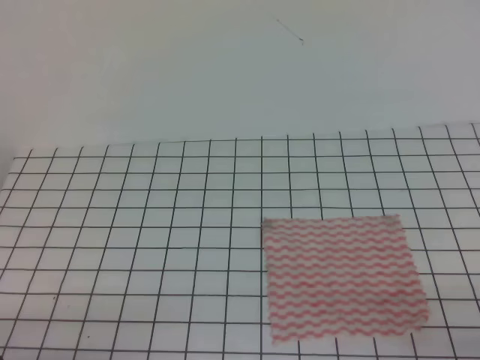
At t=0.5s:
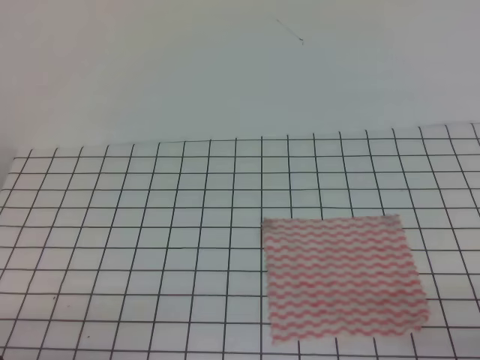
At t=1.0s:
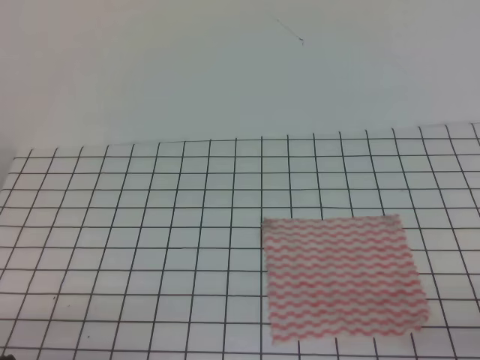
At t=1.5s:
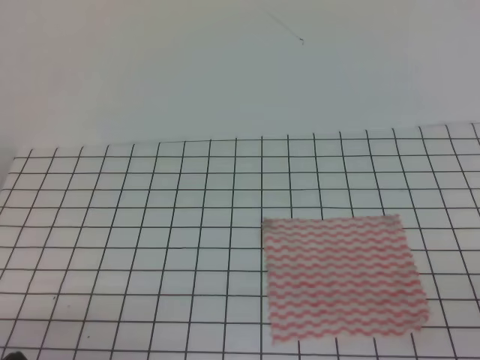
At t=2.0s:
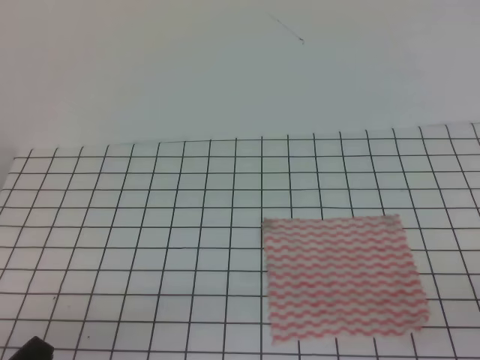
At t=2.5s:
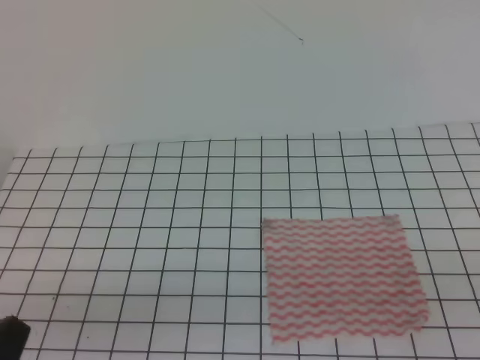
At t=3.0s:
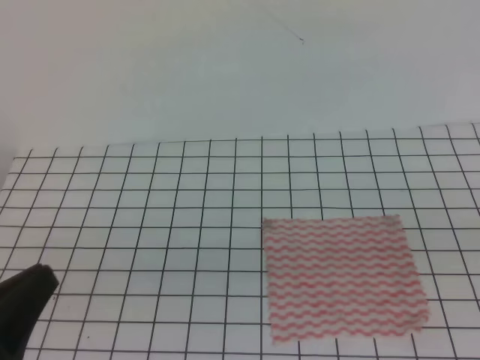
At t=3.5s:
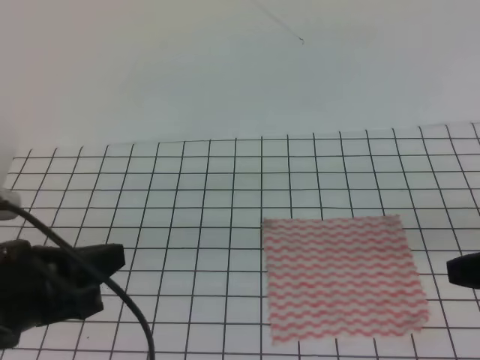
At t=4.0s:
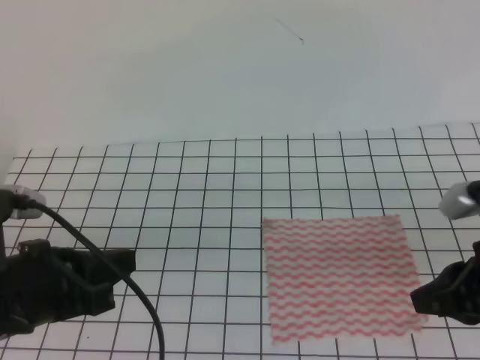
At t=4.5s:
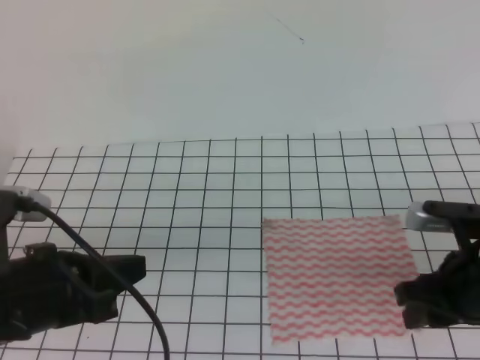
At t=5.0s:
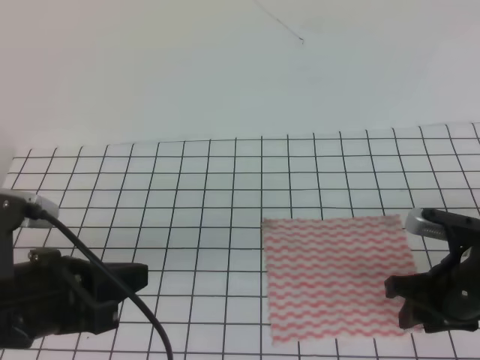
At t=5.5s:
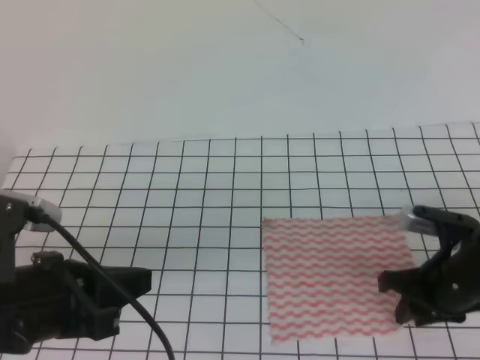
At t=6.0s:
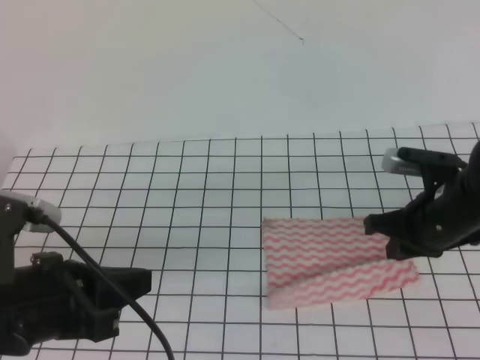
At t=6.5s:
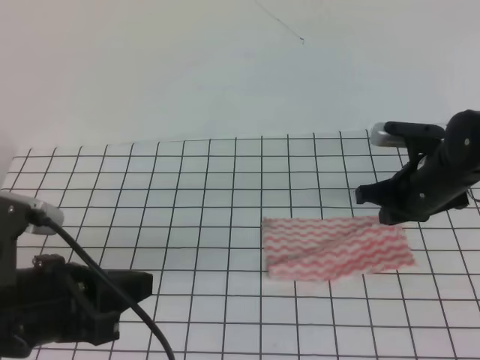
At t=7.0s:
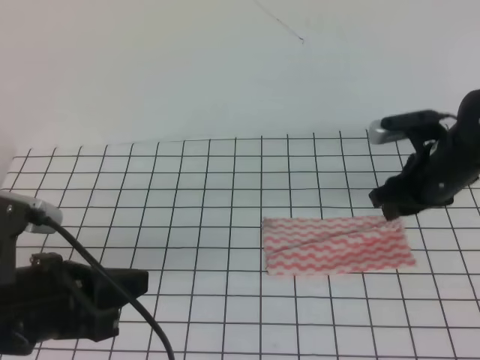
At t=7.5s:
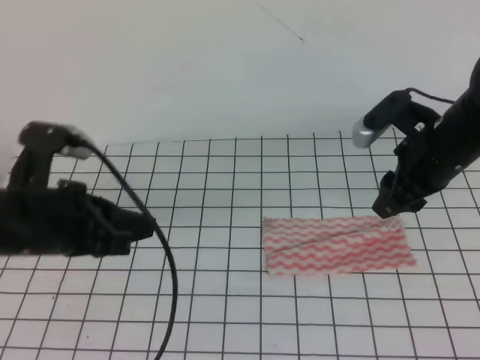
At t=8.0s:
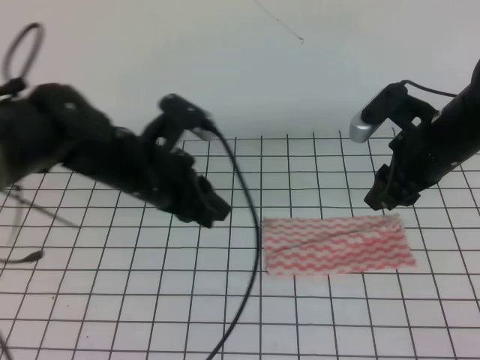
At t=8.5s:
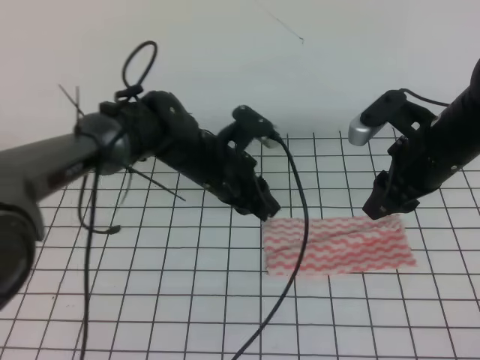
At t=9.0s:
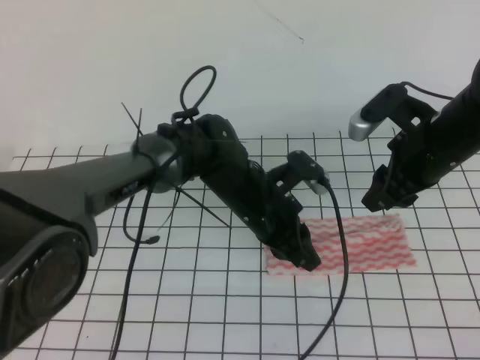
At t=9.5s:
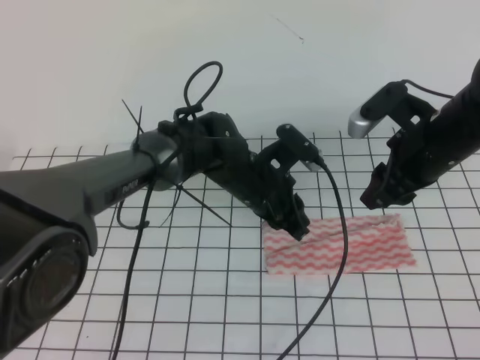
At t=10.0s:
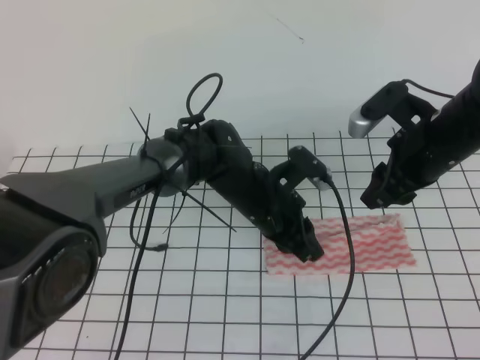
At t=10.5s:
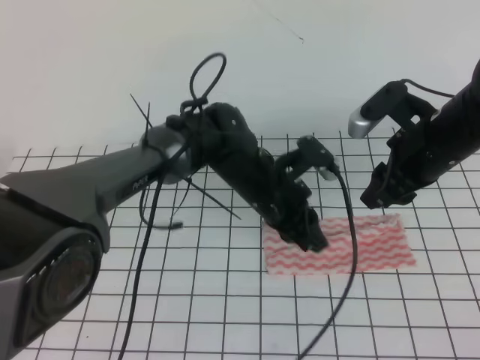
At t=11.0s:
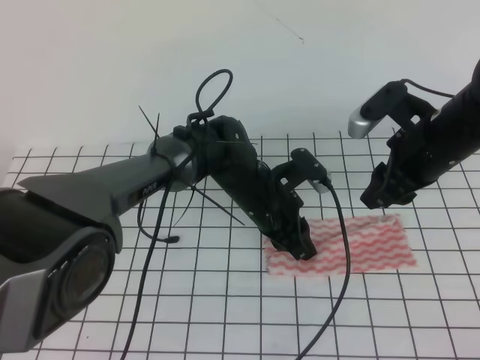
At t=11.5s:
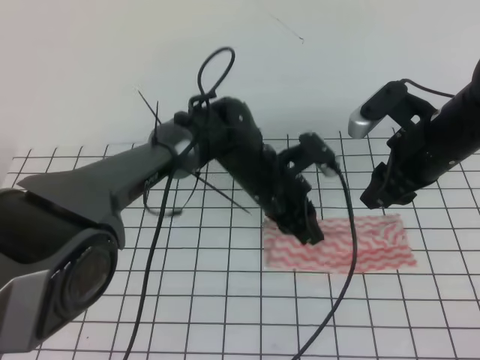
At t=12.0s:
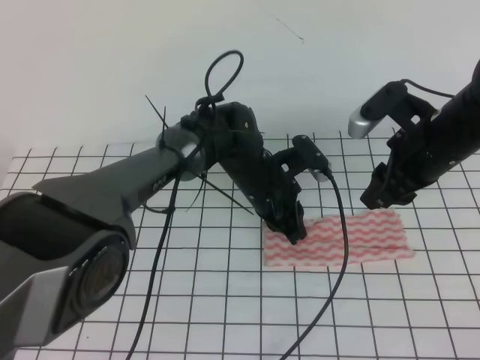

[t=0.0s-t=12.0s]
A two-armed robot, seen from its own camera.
t=2.0s to t=4.0s: The right gripper is displaced forward and to the left by about 15 cm, and opens its fingers, while the left gripper heads forward and upward, covering some 15 cm.
t=4.0s to t=6.0s: The right gripper heads forward and downward, covering approximately 15 cm, and closes its fingers.
t=6.0s to t=8.0s: The right gripper shifts roughly 10 cm upward and forward, and opens its fingers. Meanwhile the left gripper travels forward and to the right by approximately 20 cm, and opens its fingers.
t=8.0s to t=10.0s: The left gripper shifts some 15 cm to the right and downward.
t=10.0s to t=12.0s: There are only small adjustments of the grippers.

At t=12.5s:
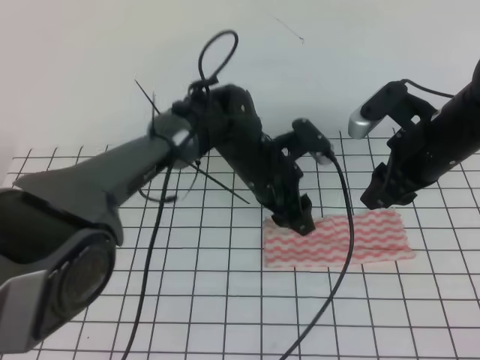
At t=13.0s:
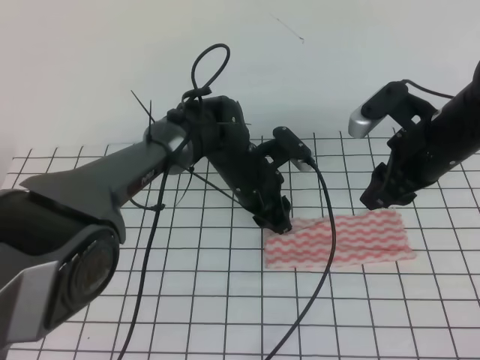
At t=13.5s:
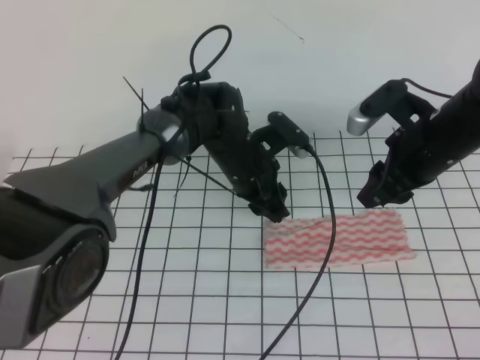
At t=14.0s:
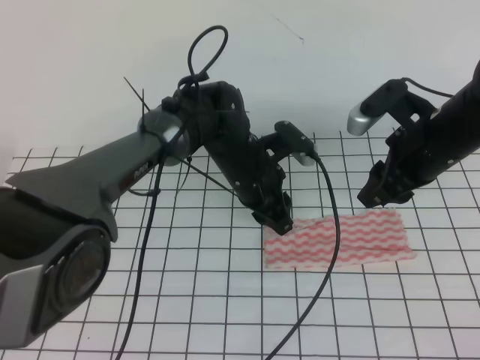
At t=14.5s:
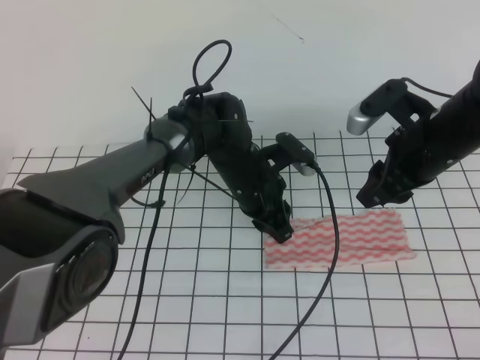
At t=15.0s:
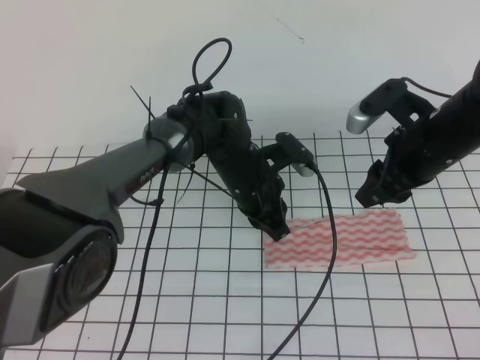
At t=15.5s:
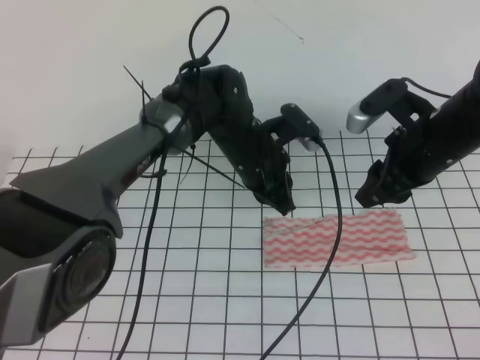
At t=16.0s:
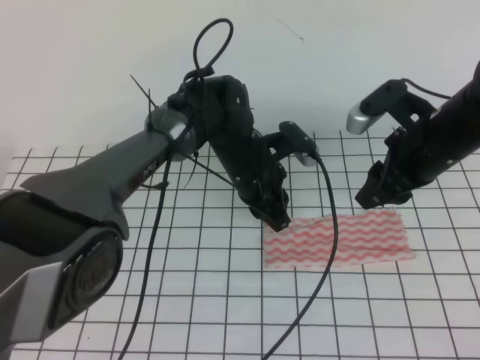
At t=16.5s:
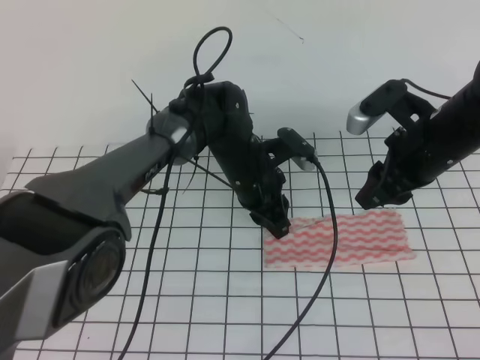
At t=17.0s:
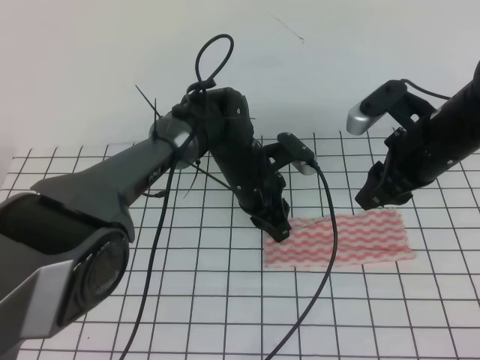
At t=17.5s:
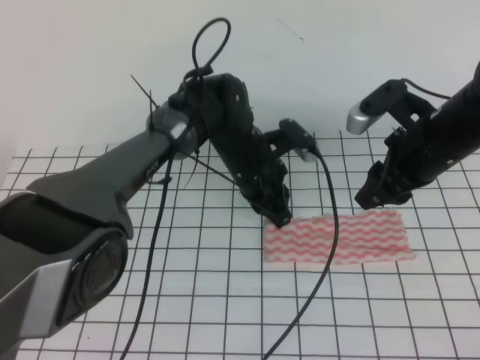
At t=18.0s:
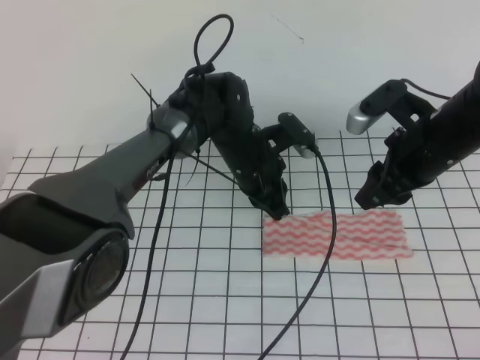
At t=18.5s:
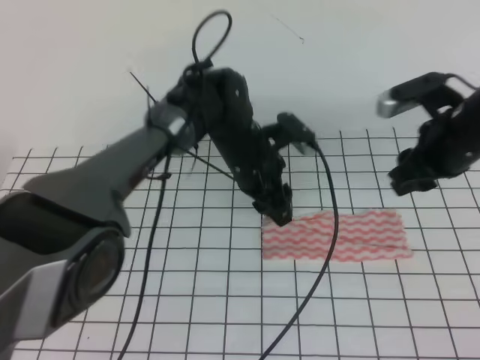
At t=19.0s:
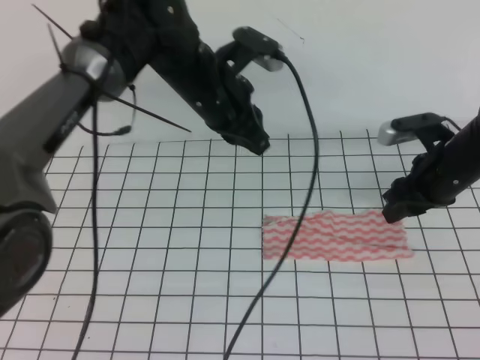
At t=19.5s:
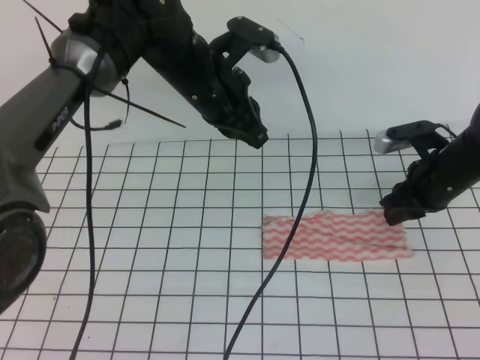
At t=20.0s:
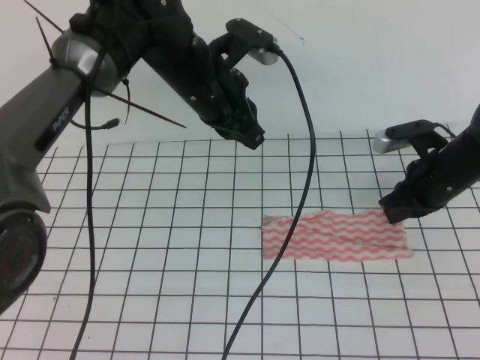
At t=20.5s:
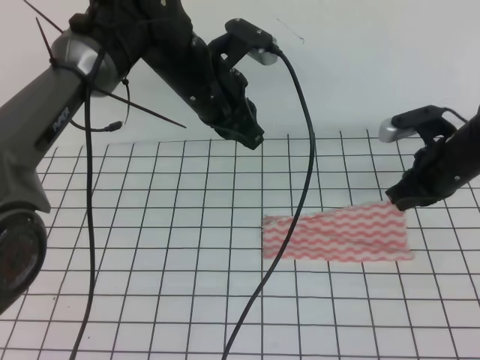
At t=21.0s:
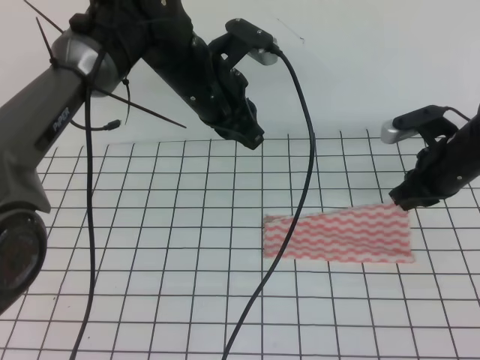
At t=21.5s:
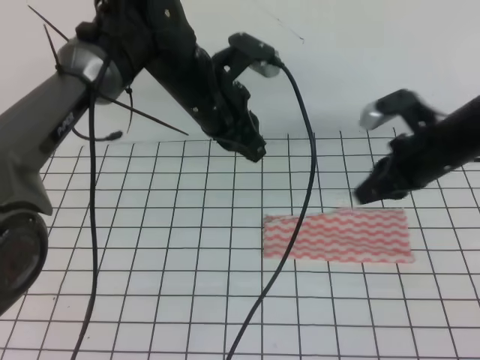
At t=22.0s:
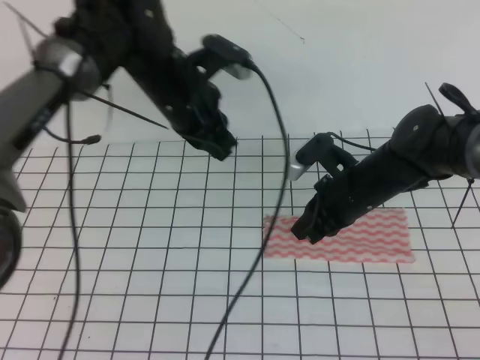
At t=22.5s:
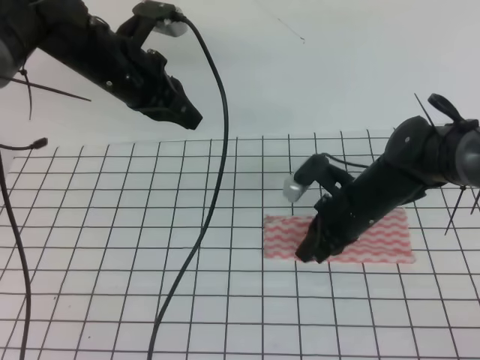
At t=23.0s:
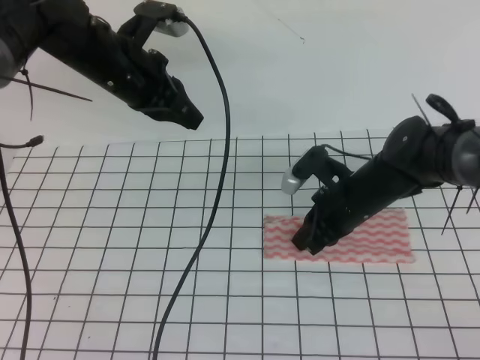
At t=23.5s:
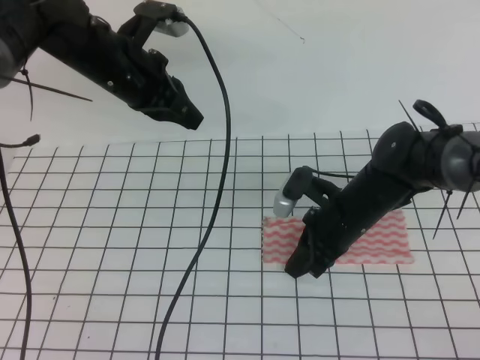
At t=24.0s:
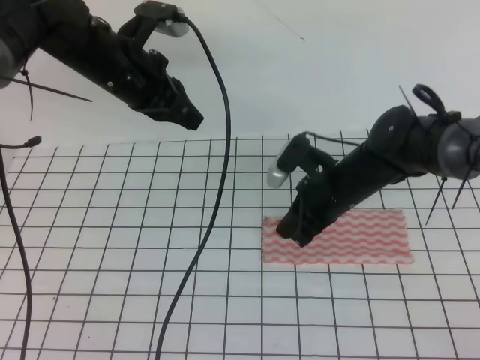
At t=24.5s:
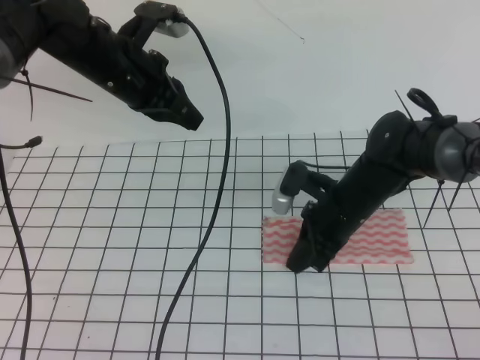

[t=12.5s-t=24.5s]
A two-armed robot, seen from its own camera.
t=12.5s to t=14.5s: The left gripper closes.
t=14.5s to t=16.5s: The left gripper closes, then opens again.
t=16.5s to t=18.5s: The left gripper opens.
t=18.5s to t=20.5s: The right gripper travels downward by roughly 5 cm, and closes its fingers; the left gripper is displaced upward and to the left by some 10 cm, and closes.
t=20.5s to t=22.5s: The grippers both shift to the left by about 10 cm. The right gripper opens, then closes again.
t=22.5s to t=24.5s: There are only small adjustments of the grippers.

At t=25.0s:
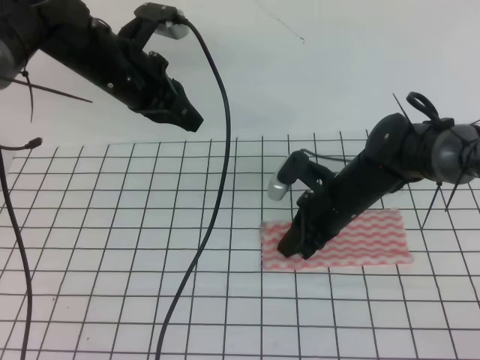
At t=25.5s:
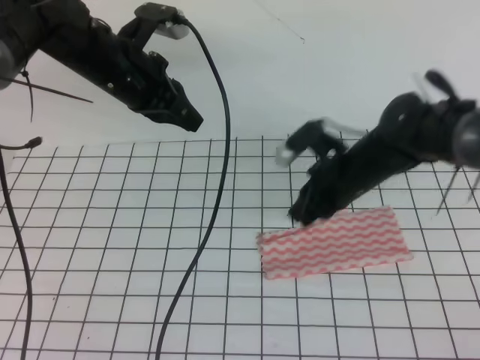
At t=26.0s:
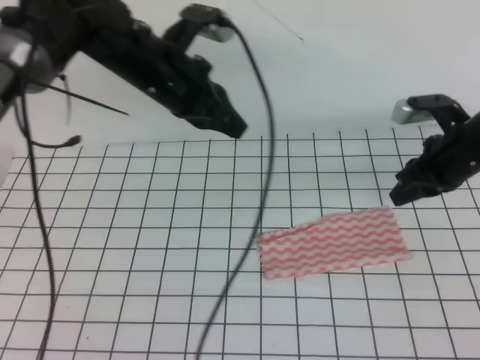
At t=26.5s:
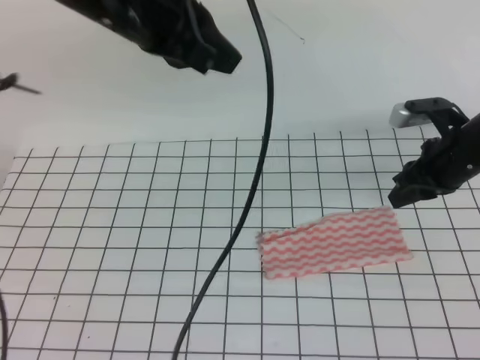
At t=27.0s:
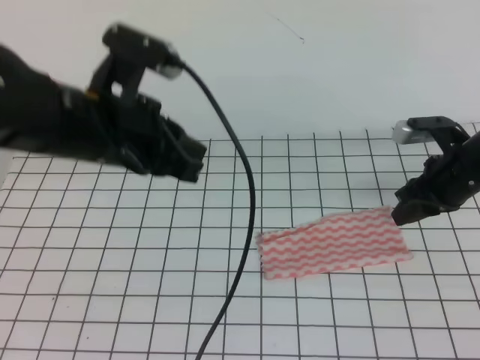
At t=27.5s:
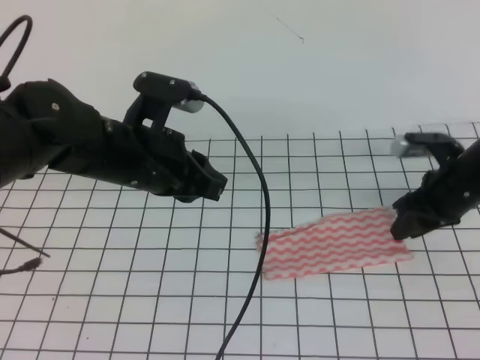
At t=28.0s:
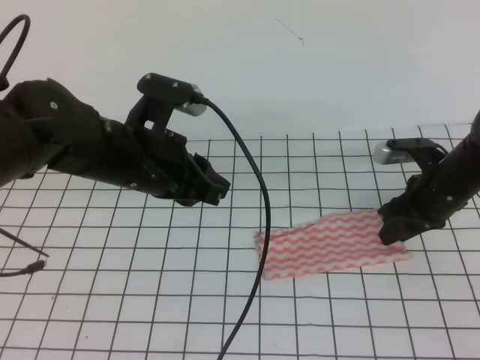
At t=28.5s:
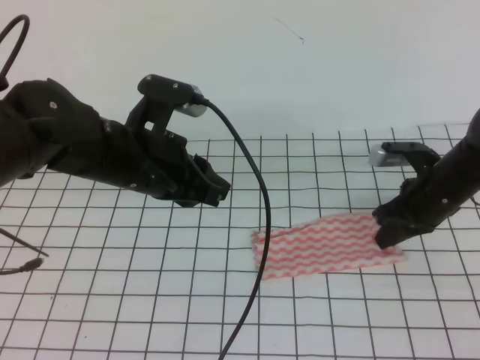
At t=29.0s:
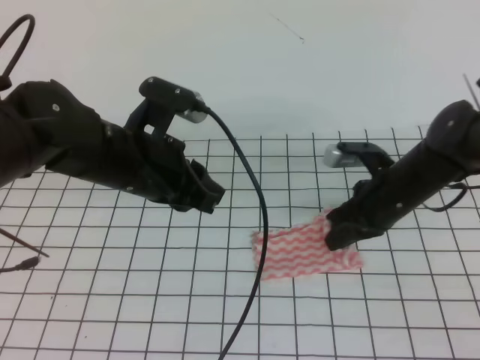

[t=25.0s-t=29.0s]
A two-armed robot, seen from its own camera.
t=25.0s to t=27.0s: The right gripper heads to the right, covering some 15 cm, and opens its fingers; the left gripper goes approximately 10 cm backward.
t=27.0s to t=29.0s: The right gripper travels to the left by about 10 cm, and closes, while the left gripper travels downward by approximately 5 cm, and opens up.
